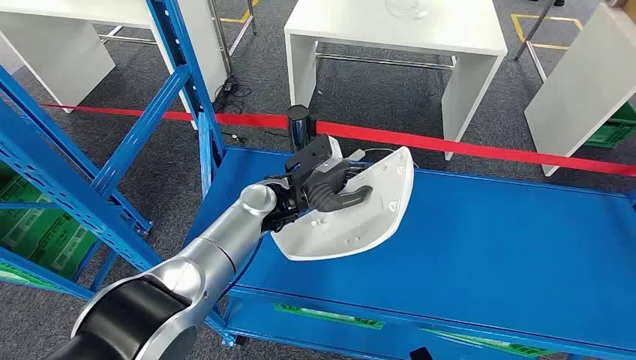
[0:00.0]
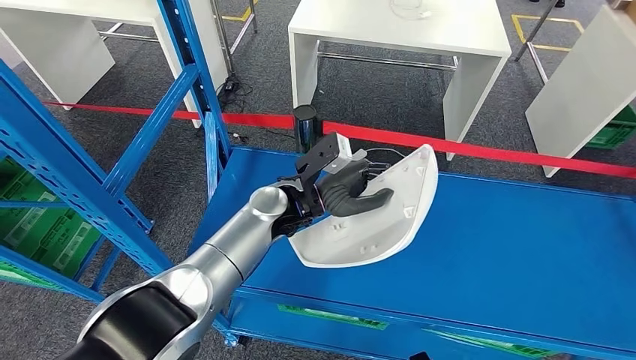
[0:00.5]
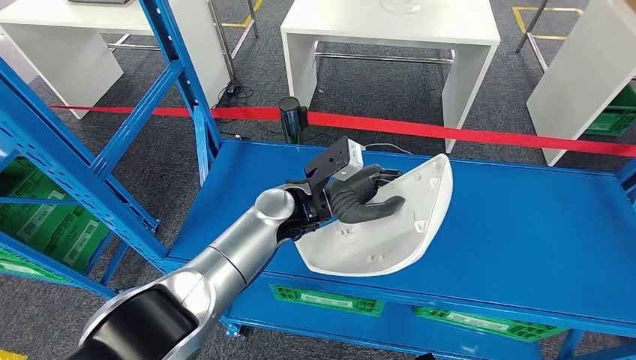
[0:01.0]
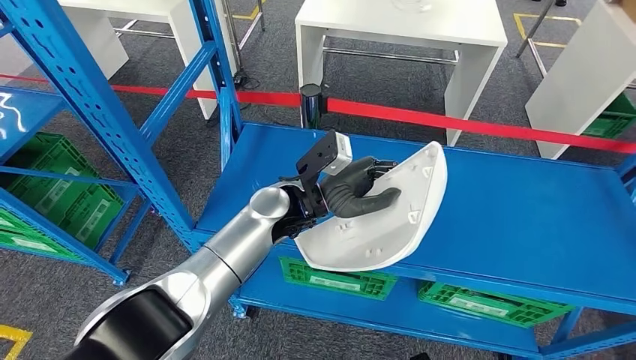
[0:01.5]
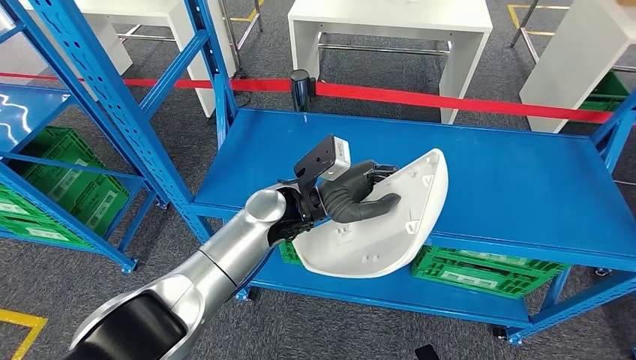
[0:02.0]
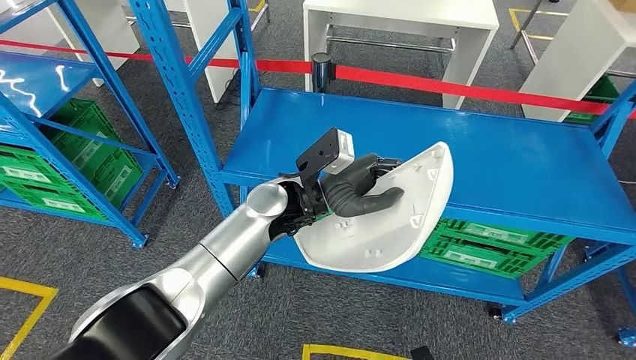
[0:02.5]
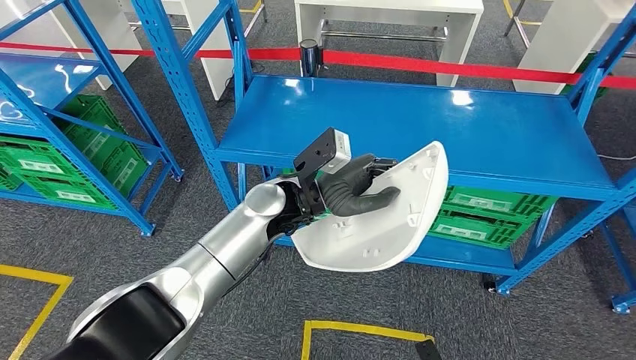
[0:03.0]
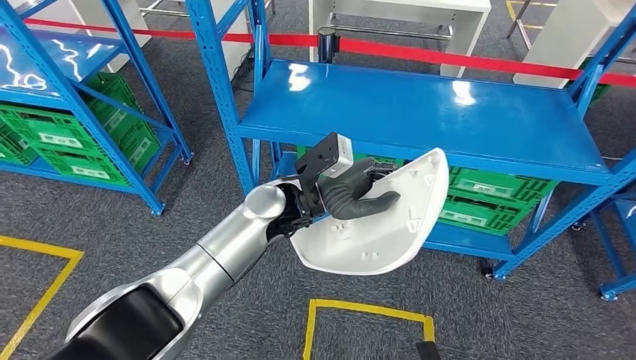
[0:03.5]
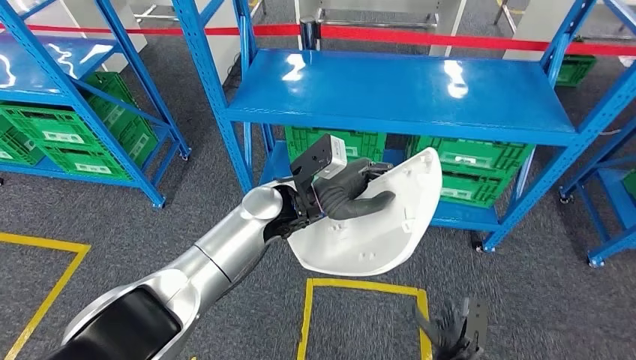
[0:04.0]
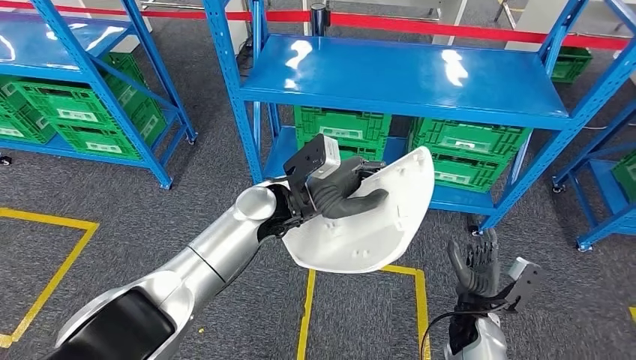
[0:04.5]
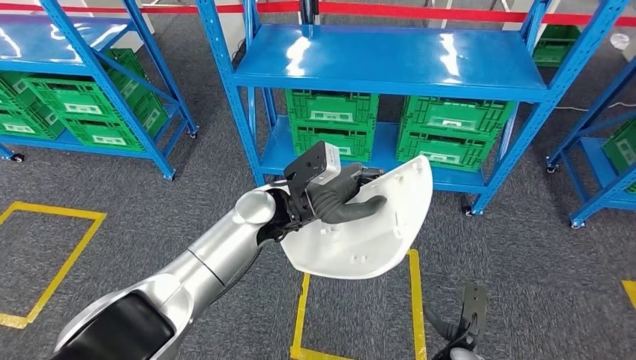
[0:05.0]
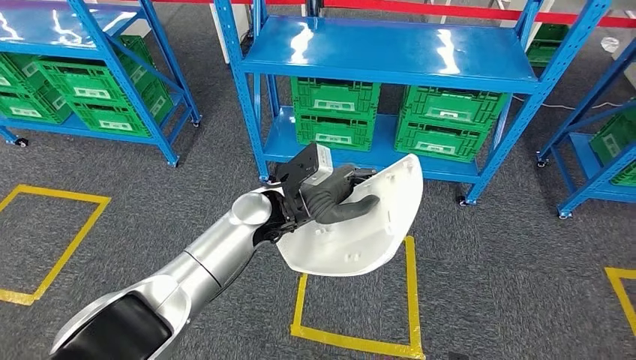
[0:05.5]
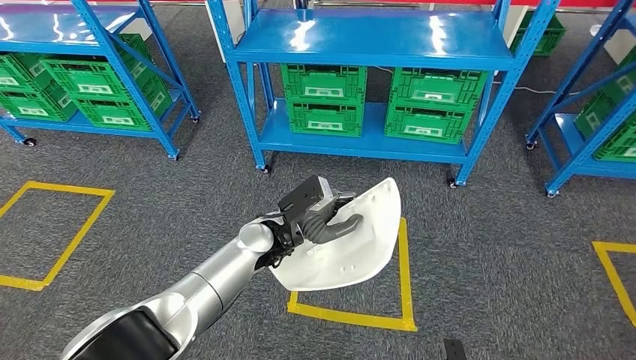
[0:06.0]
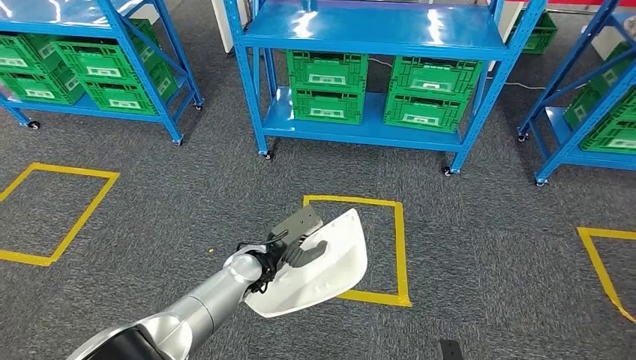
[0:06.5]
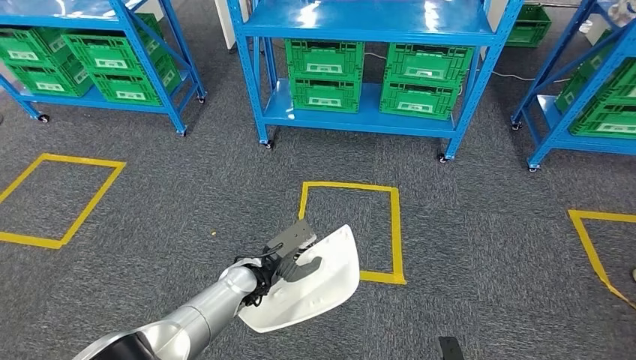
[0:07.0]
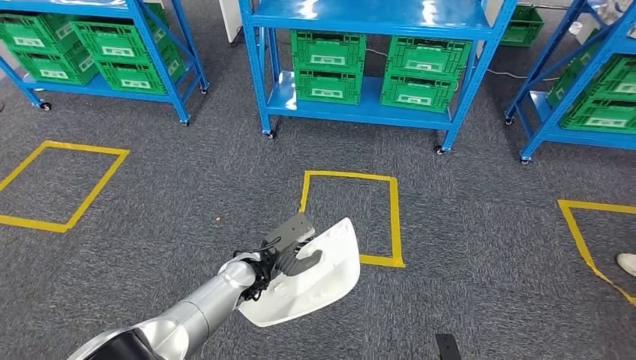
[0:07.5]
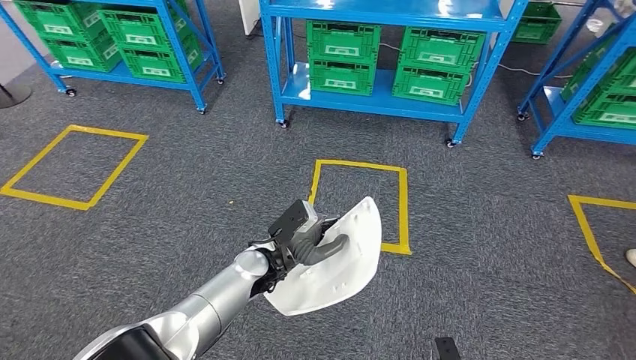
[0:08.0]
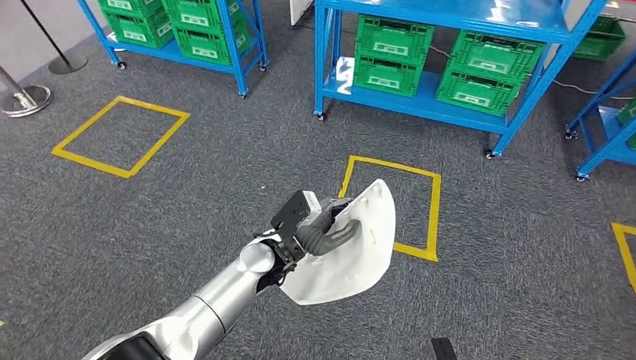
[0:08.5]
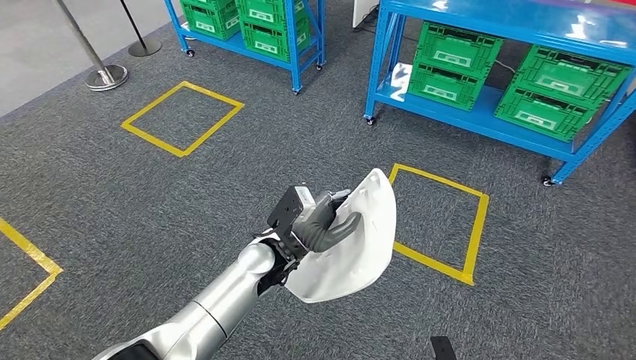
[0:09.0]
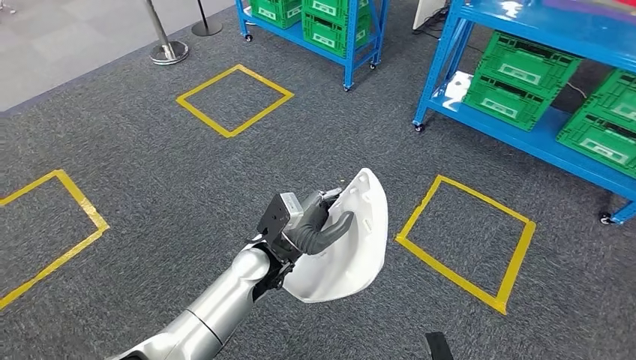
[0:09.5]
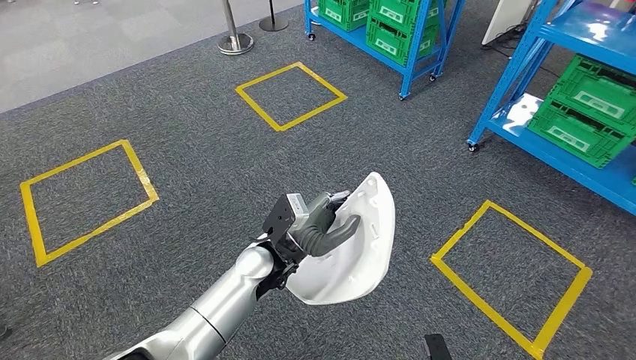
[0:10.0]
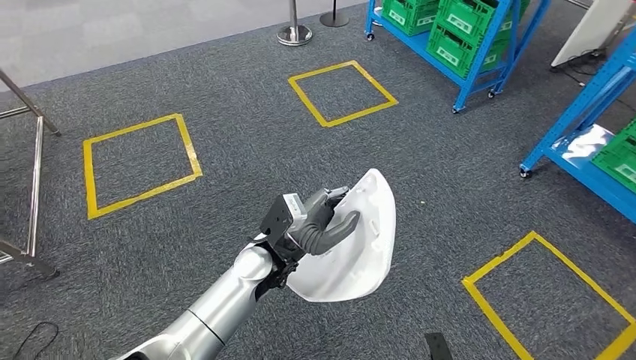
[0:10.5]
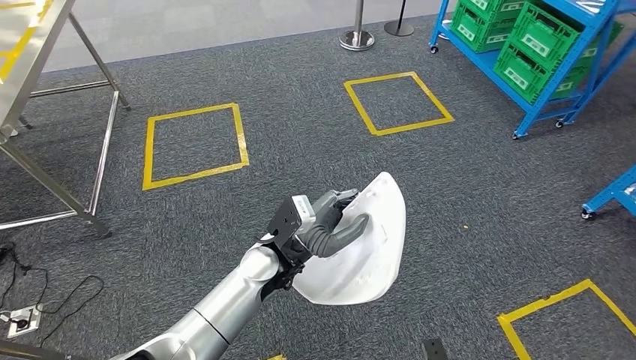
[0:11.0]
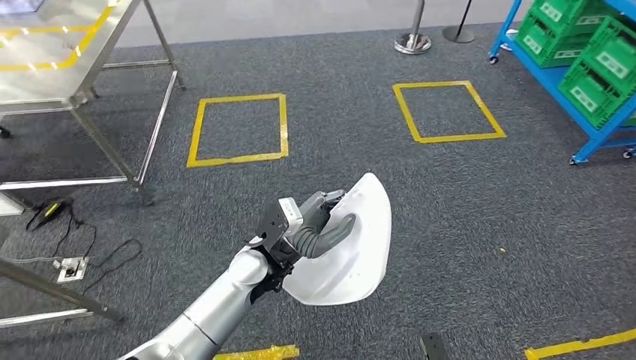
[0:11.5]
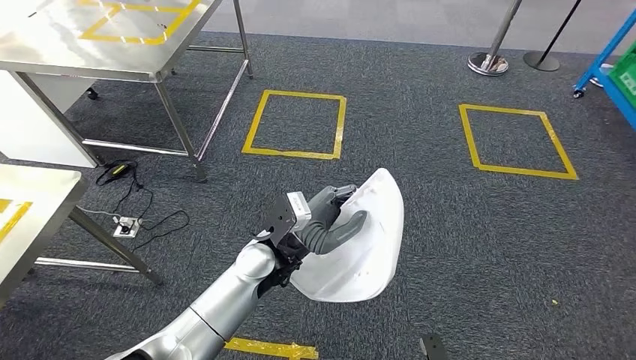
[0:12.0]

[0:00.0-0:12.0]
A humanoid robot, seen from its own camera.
Step, 0:00.0 to 0:02.5: Pick up the small component from the shelf.

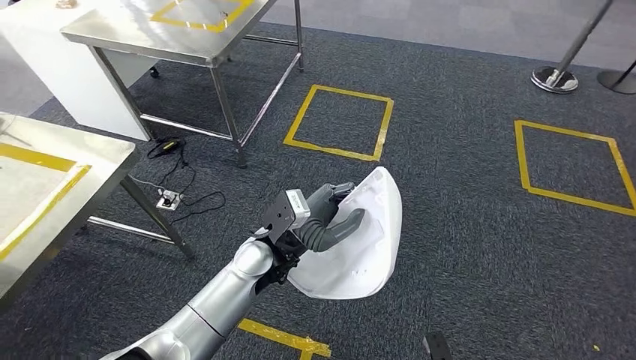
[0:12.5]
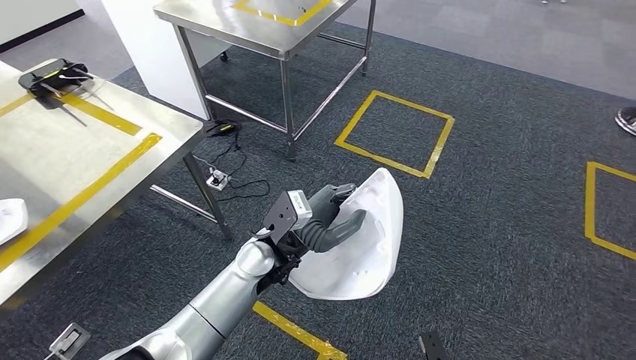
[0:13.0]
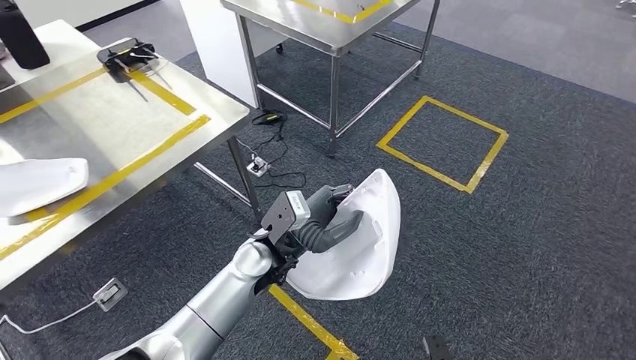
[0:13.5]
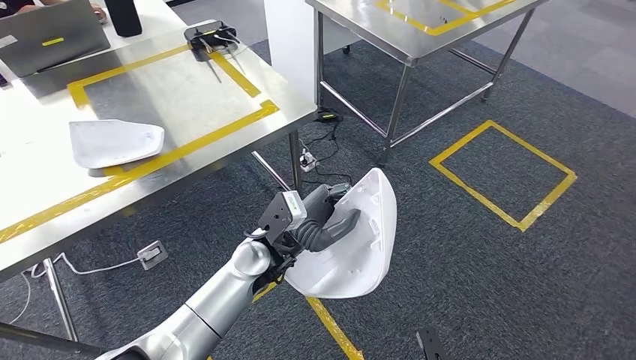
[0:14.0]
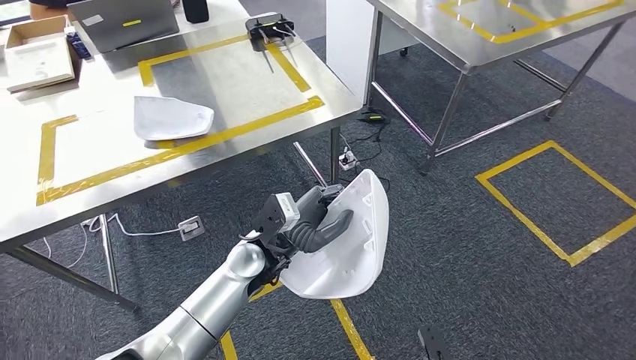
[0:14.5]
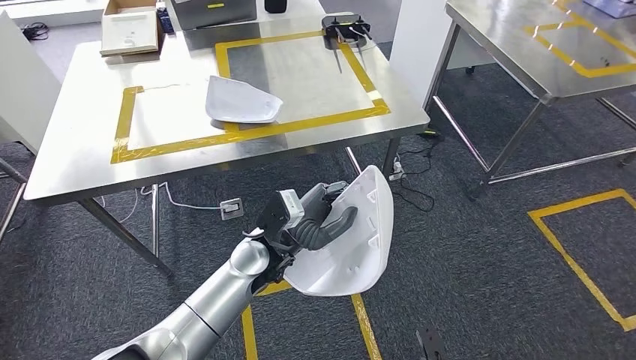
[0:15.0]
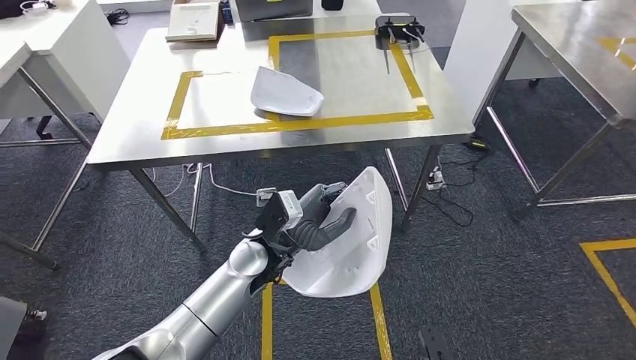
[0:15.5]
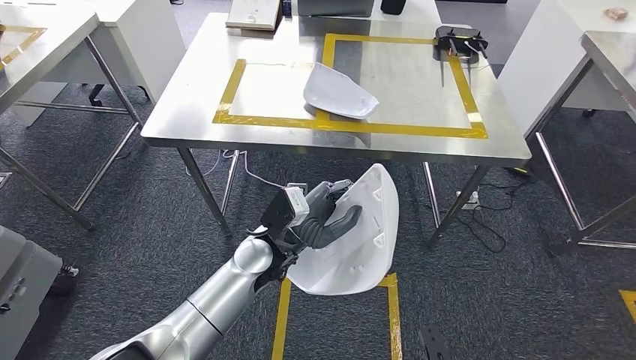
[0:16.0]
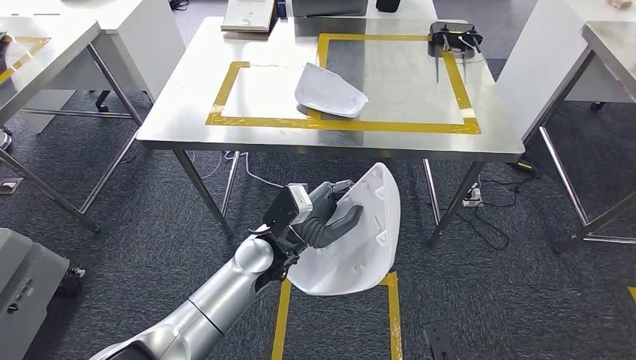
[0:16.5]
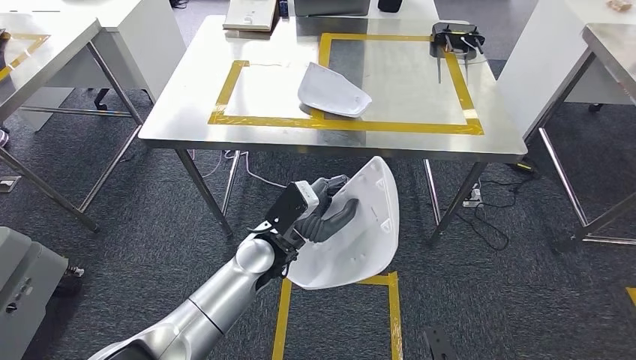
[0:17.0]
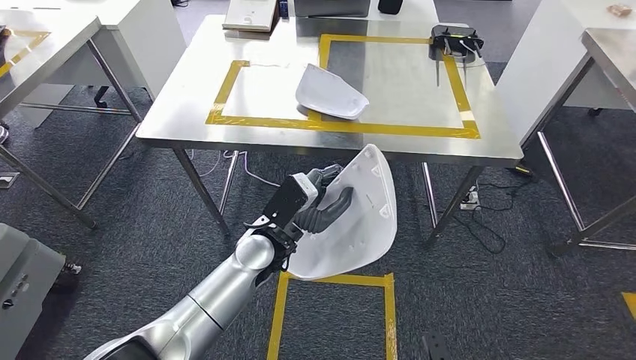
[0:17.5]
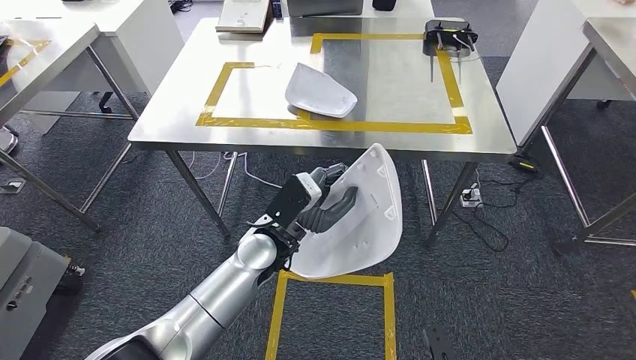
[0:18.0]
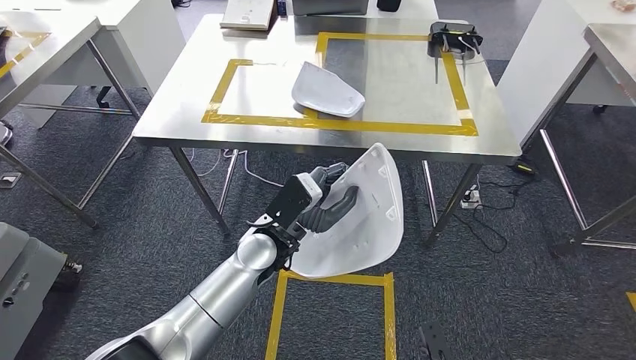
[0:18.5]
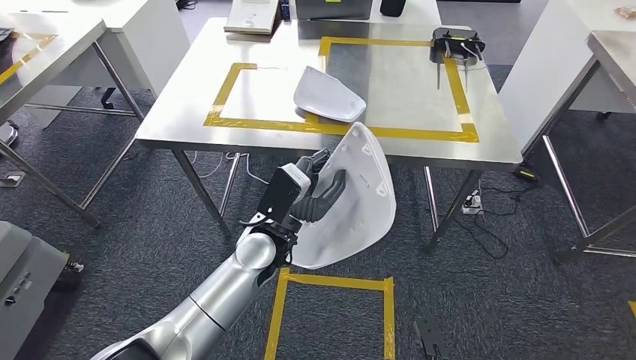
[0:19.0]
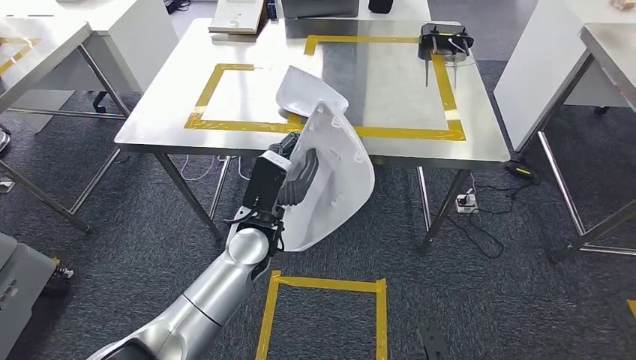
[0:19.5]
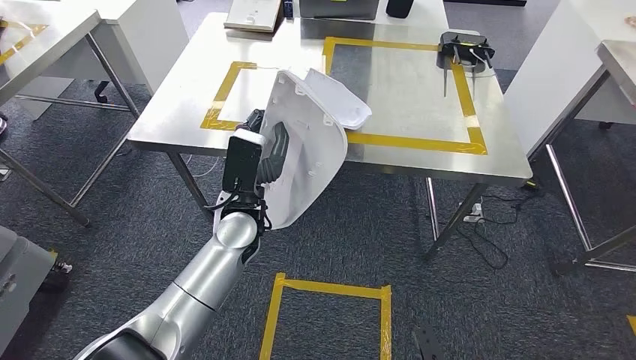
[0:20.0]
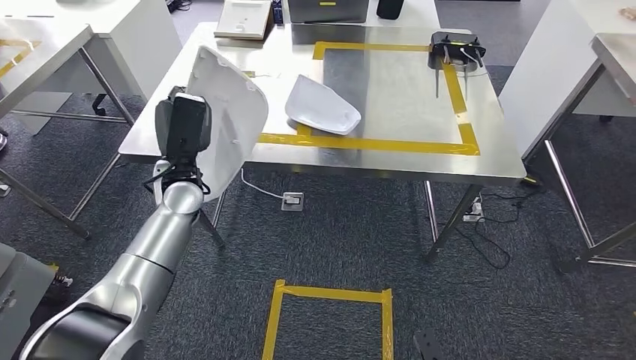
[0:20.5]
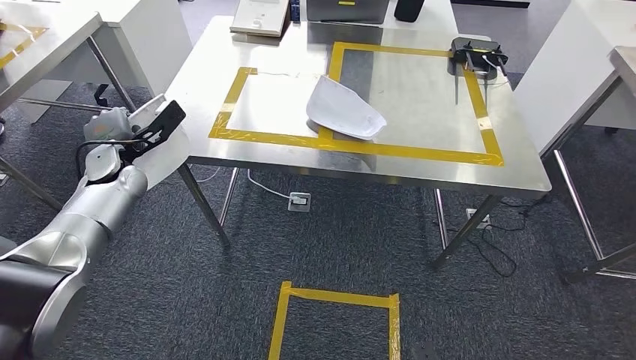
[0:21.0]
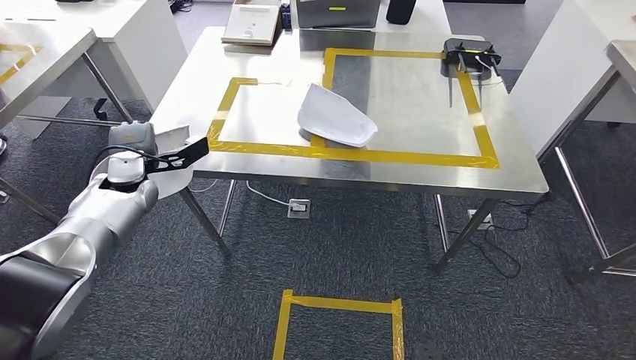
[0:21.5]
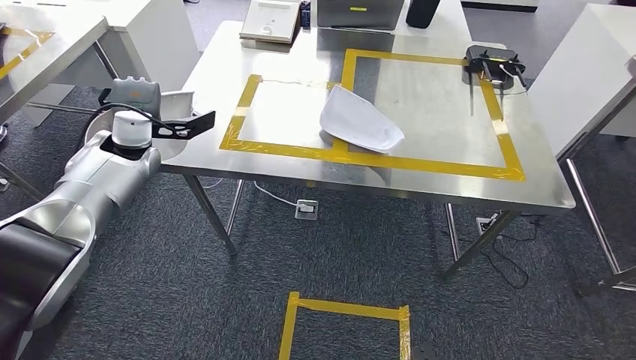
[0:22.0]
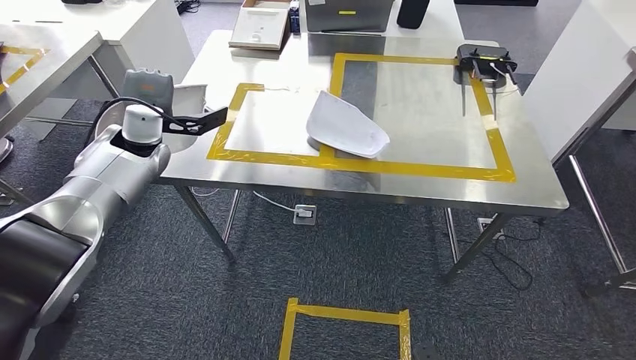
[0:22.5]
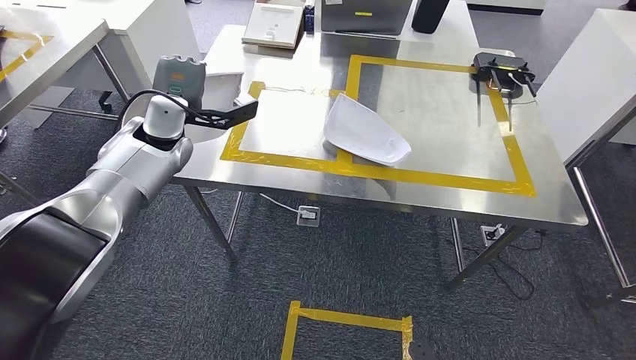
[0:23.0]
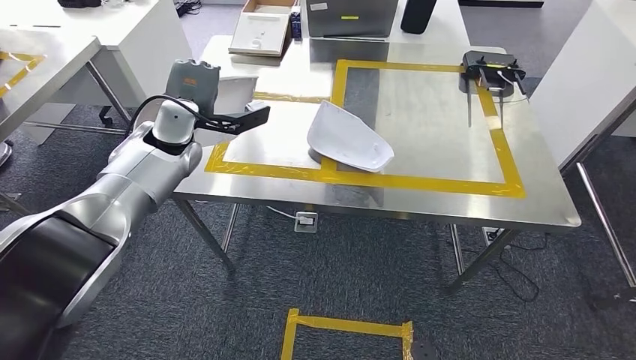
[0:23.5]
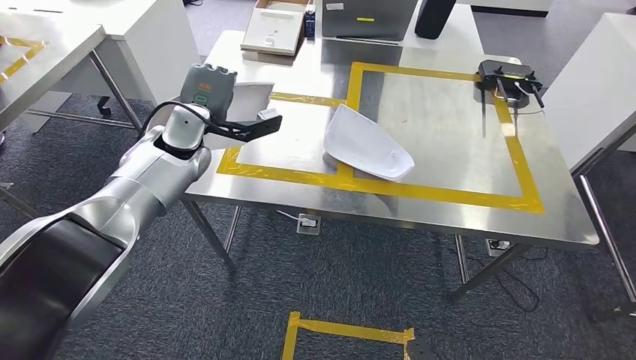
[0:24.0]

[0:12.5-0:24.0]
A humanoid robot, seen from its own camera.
Step, 0:12.5 to 0:24.0: Move the small component to the workbench.
0:16.5 to 0:18.5: The hands move only a little.
